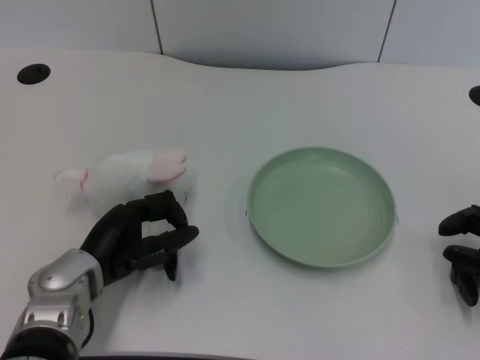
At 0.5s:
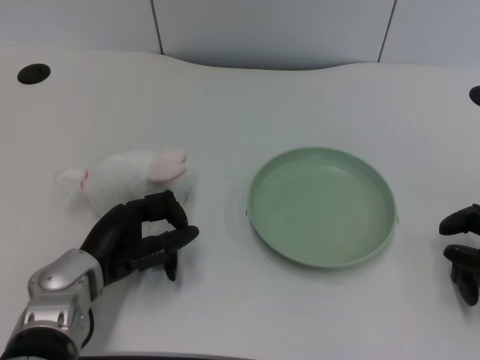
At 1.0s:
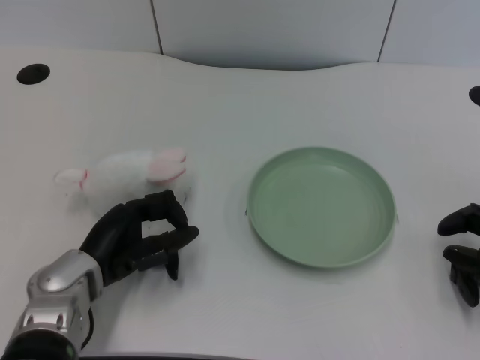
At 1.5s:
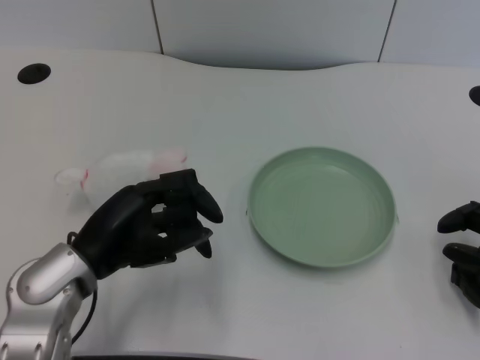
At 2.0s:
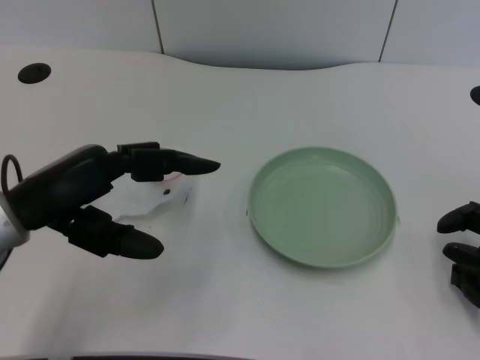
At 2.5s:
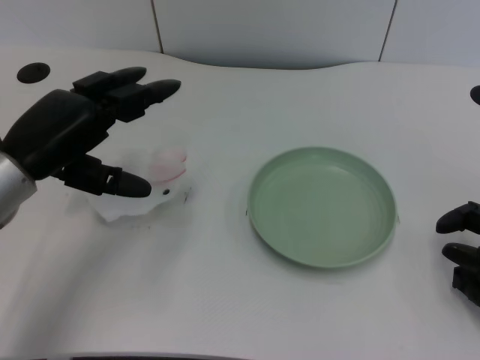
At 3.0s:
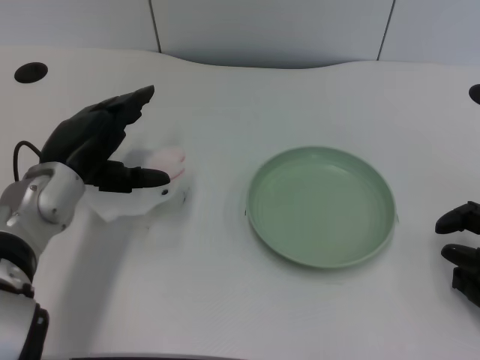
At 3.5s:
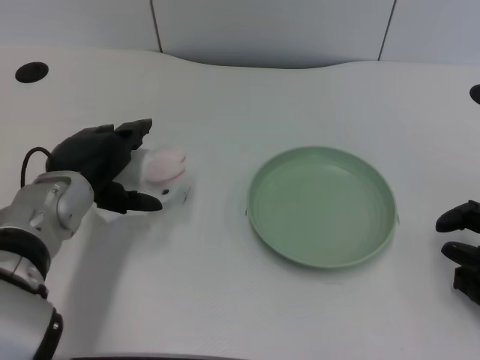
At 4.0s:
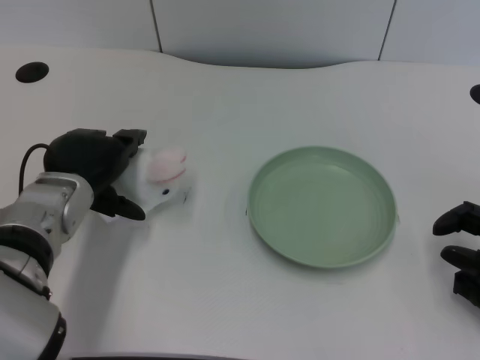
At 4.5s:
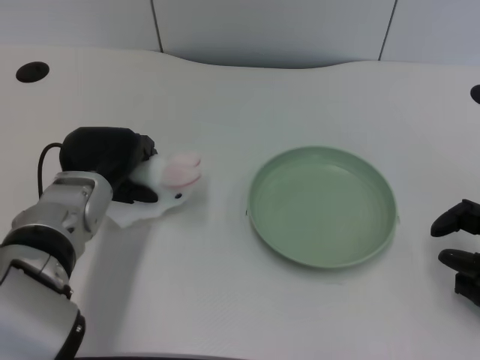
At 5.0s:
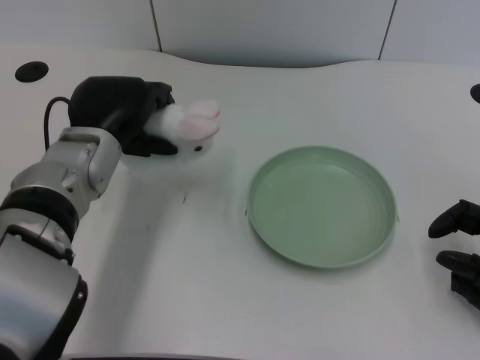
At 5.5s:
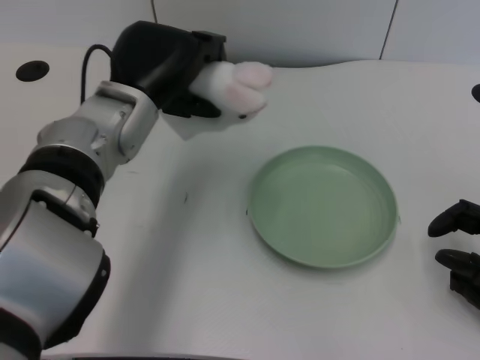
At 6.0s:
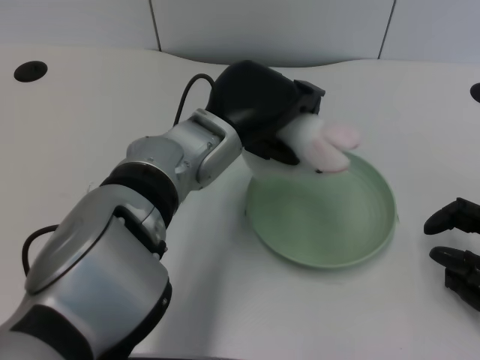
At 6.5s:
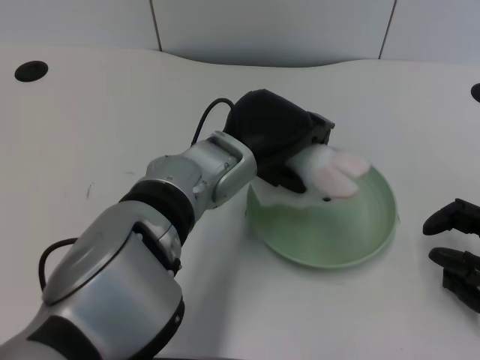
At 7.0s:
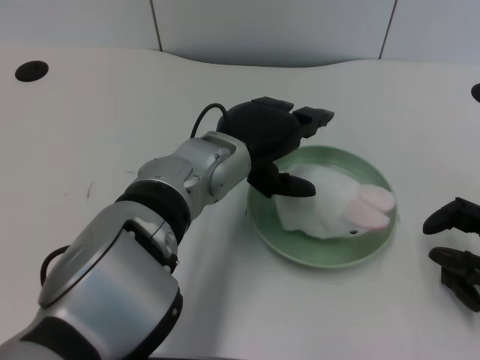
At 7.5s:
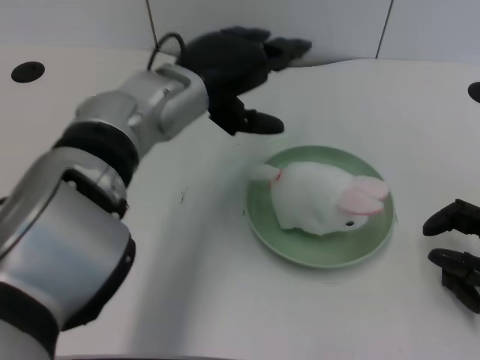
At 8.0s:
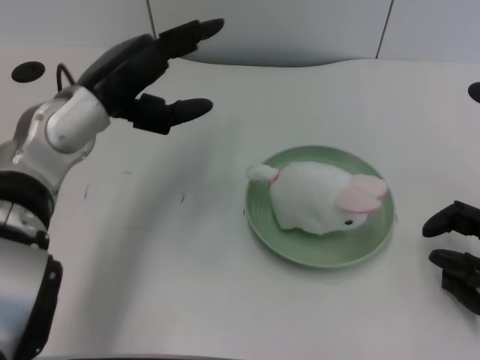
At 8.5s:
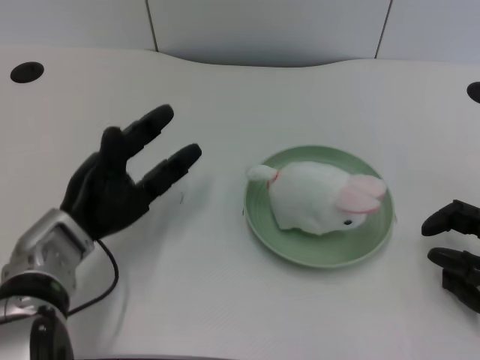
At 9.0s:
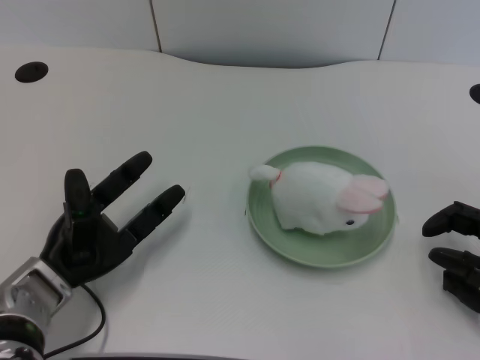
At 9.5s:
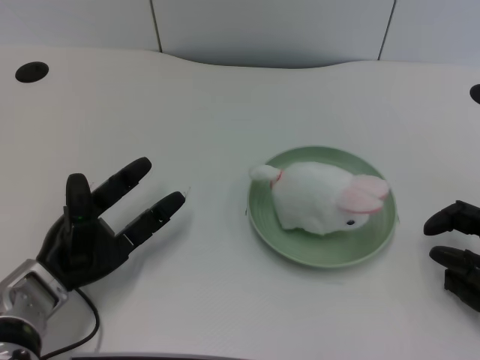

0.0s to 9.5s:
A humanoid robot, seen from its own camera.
Task of the whole recording: pick up the rabbit doll from the table and place it on the plate.
Step, 1.0s to 4.5s: Grasp the rabbit doll with the left gripper.
Step, 5.0s to 6.5s: Place the rabbit doll into the plate with the left gripper.
2.0s to 4.0s: The left hand shifts approximately 10 cm forward, downward and to the right.
4.0s to 5.5s: The left hand shifts some 10 cm upward and to the right.
7.5s to 9.5s: The left hand shifts about 25 cm downward, to the left and backward.

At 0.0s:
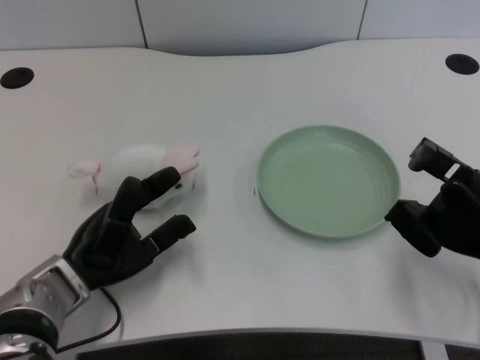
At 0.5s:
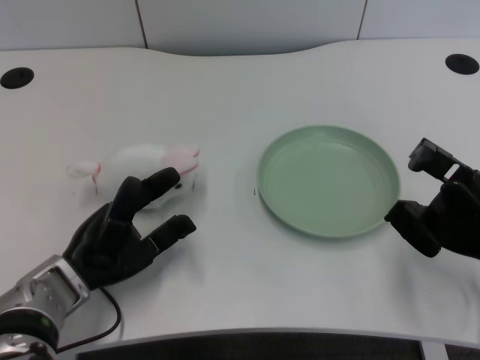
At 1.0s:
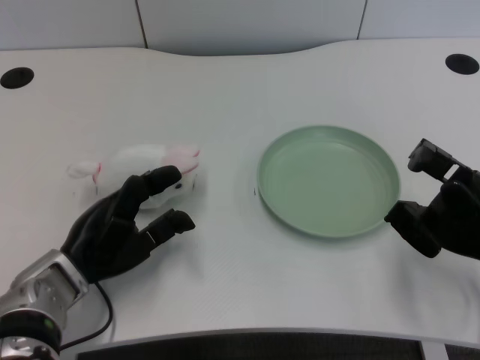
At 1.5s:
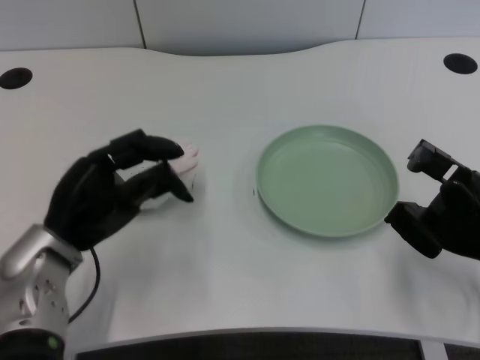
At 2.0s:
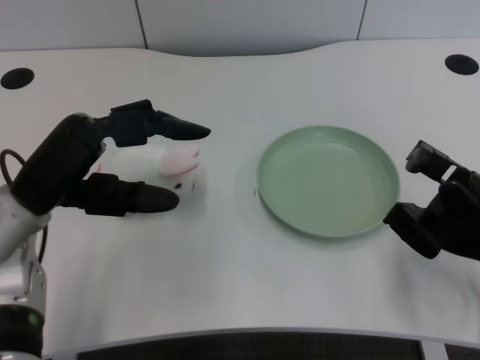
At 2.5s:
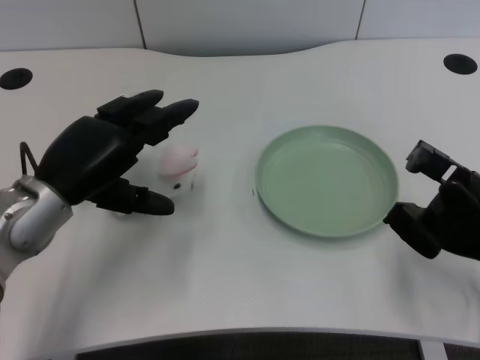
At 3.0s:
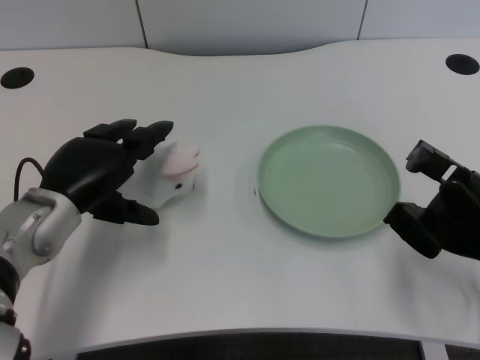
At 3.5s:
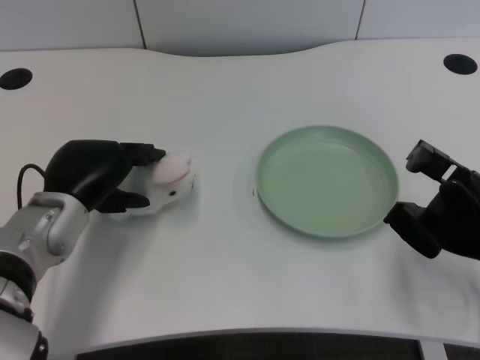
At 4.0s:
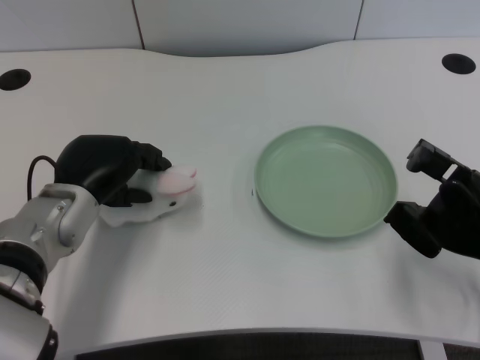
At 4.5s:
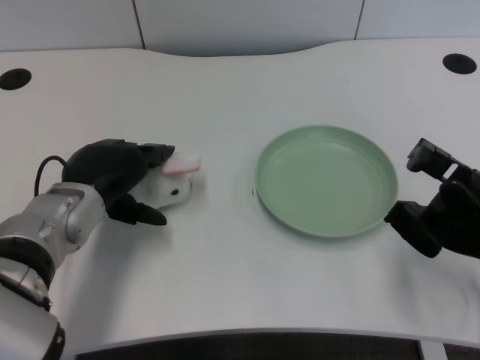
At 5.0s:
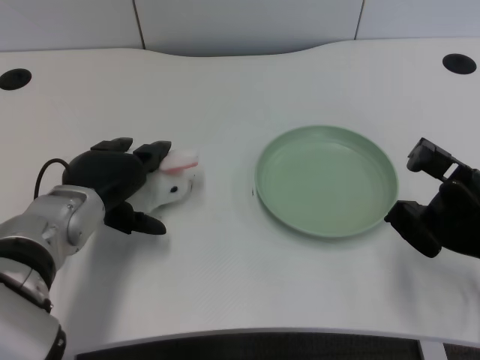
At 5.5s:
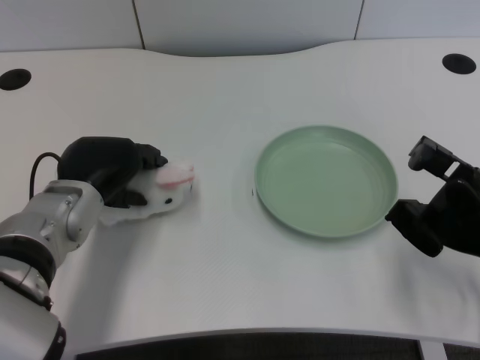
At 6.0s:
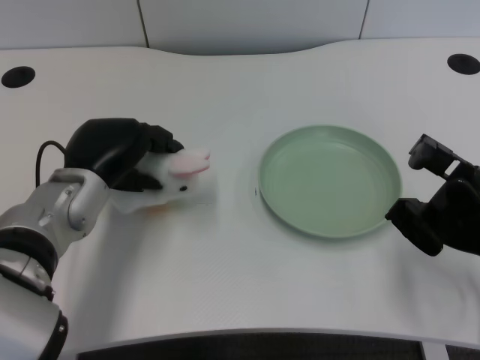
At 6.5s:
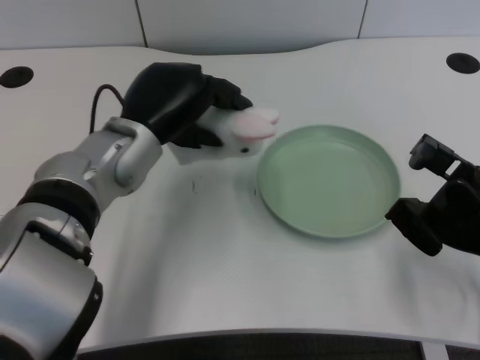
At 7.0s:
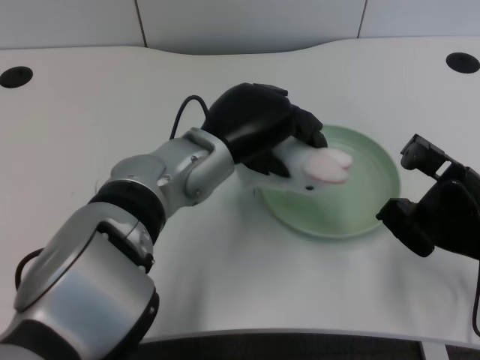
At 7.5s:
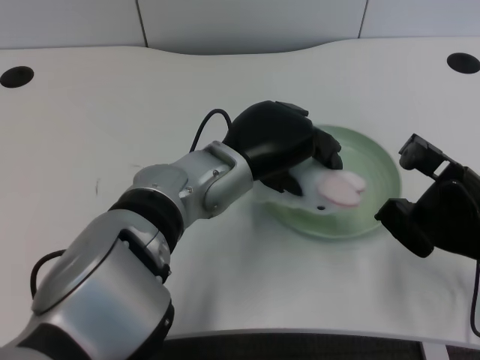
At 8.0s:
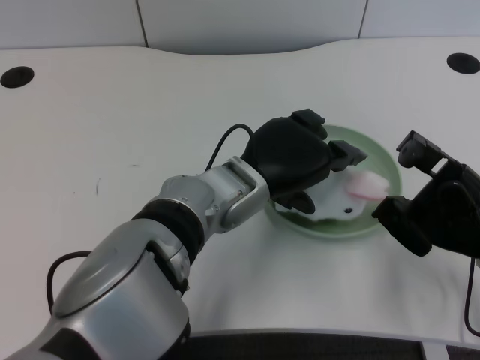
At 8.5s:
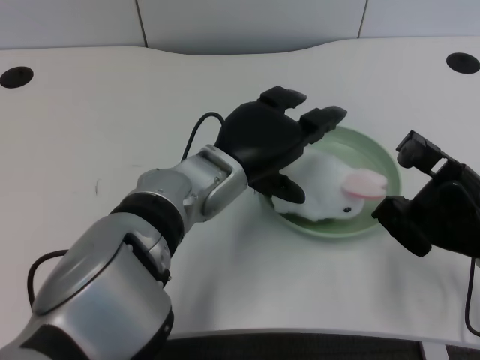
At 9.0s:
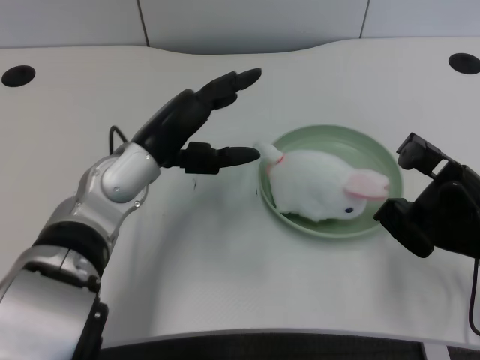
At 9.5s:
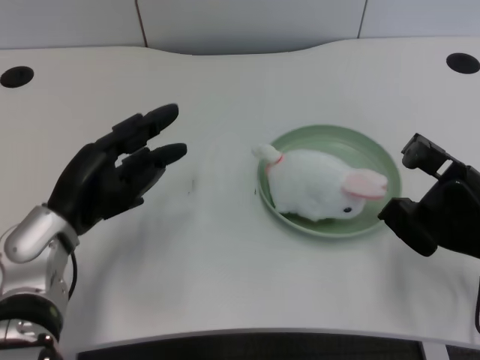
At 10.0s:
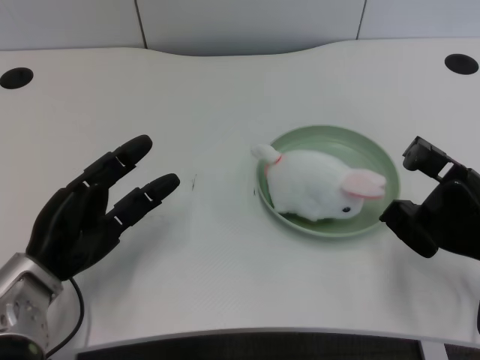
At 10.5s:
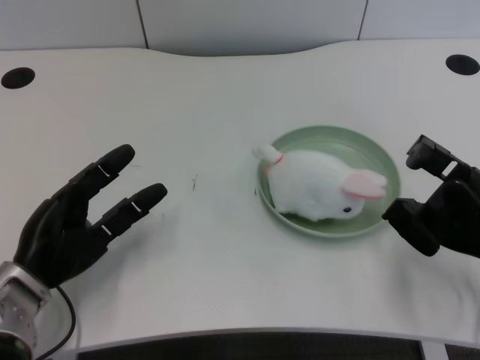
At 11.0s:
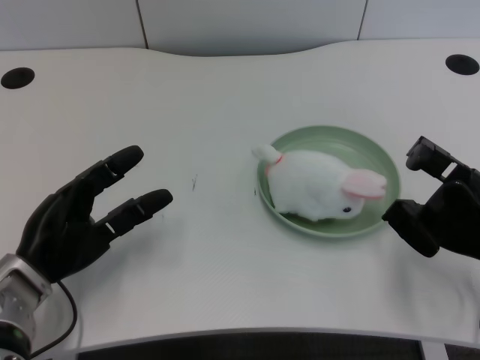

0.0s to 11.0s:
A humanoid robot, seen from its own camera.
Task of the whole recording: pick up the rabbit doll from the table and place it on the plate.
Step, 1.0s to 6.0s: Grasp the rabbit doll with the left gripper.
Step, 6.5s to 8.0s: Place the rabbit doll into the plate with the left gripper.
2.0s to 3.5s: The left hand travels downward by roughly 5 cm.
3.5s to 5.5s: The hands make only small movements.
5.5s to 7.5s: The left hand is displaced to the right by approximately 15 cm.
7.5s to 9.0s: The left hand goes approximately 10 cm to the left.
9.0s to 11.0s: The left hand moves to the left, downward and backward, about 15 cm.

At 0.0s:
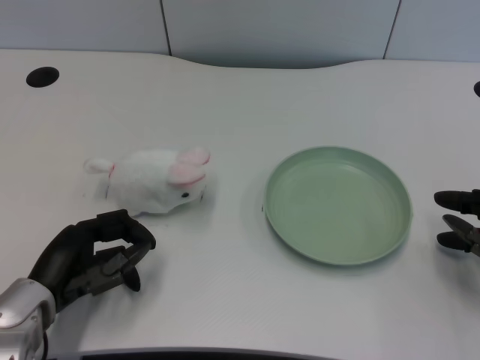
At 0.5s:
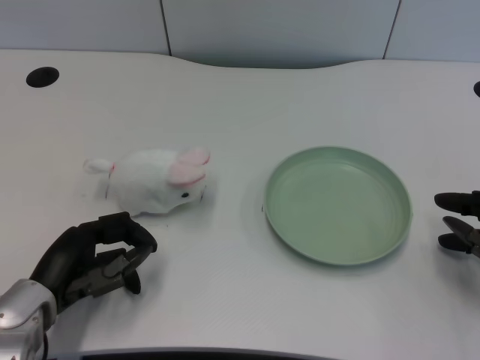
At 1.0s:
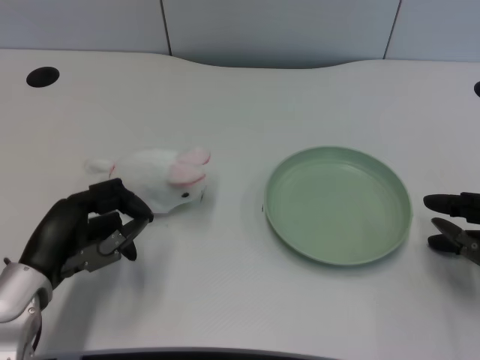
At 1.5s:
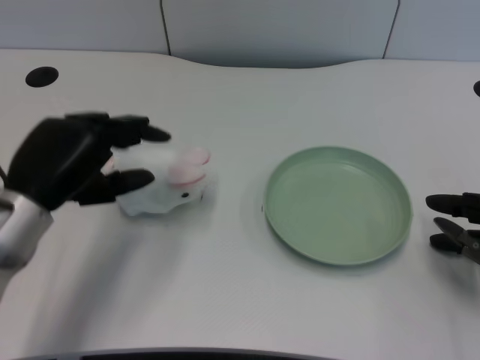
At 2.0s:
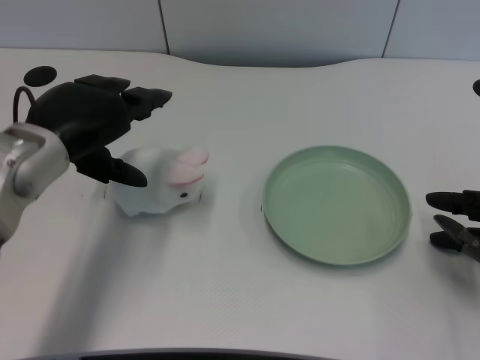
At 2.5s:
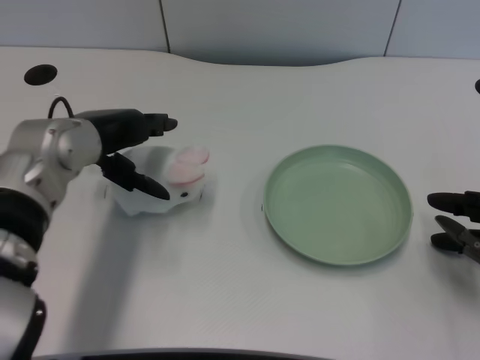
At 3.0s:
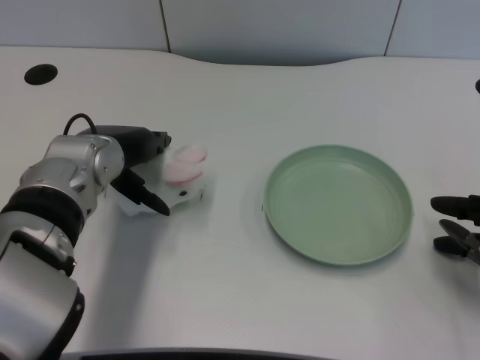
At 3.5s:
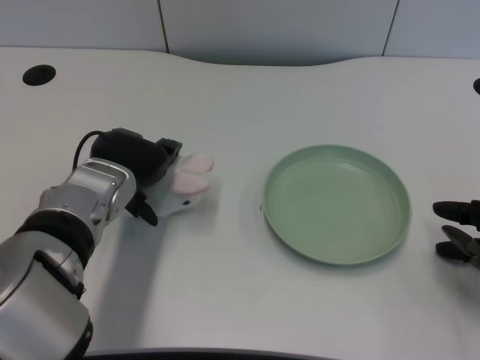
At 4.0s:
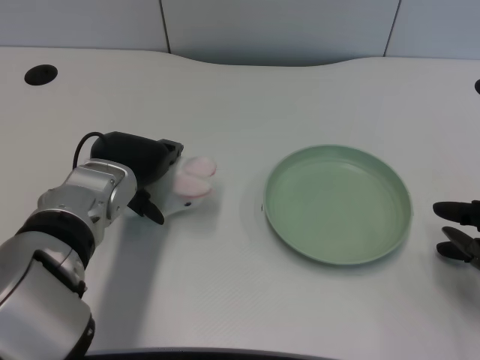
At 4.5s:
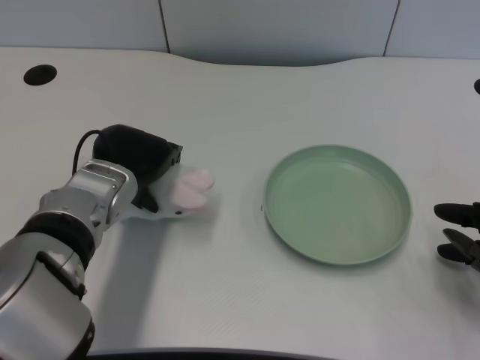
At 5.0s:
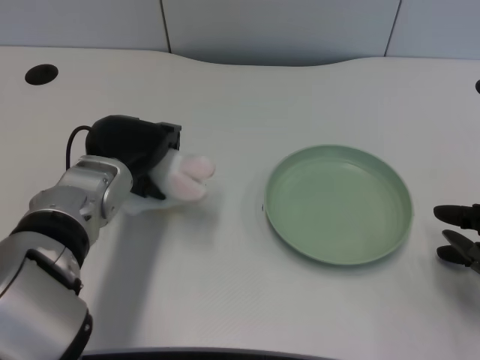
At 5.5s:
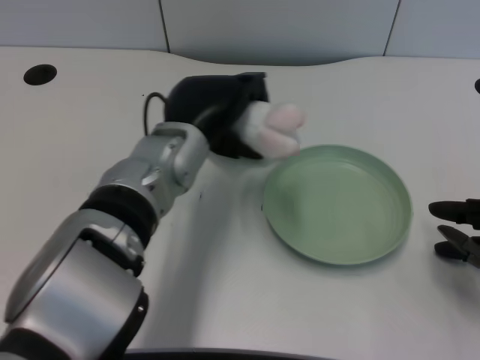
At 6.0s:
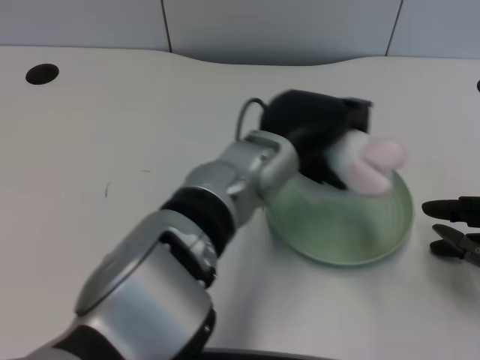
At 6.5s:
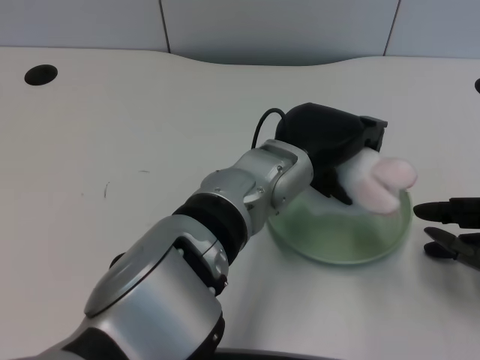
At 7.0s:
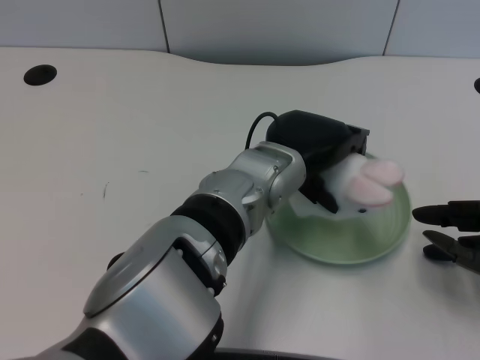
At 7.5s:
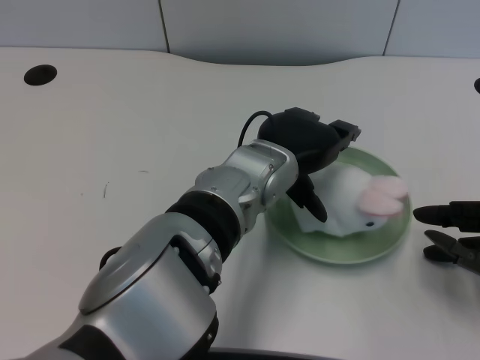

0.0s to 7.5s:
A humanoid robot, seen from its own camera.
Task of the whole recording: pick up the rabbit doll from the table and place it on the plate.
Step, 1.0s to 4.5s: Grasp the rabbit doll with the left gripper.
Step, 5.0s to 7.0s: Place the rabbit doll into the plate with the left gripper.
2.0s to 4.0s: The left hand shifts about 10 cm downward and to the right.
4.0s to 5.5s: The left hand travels to the right by approximately 10 cm.
5.5s to 7.5s: The left hand moves to the right, some 10 cm.
